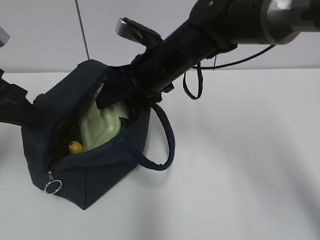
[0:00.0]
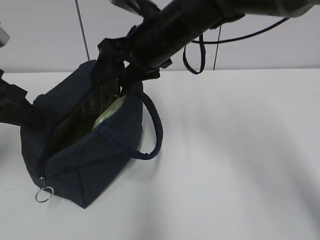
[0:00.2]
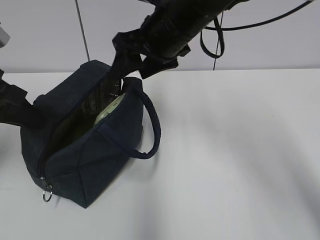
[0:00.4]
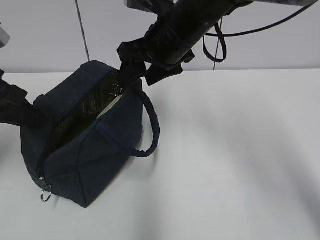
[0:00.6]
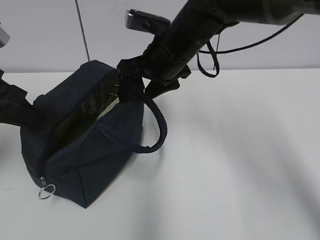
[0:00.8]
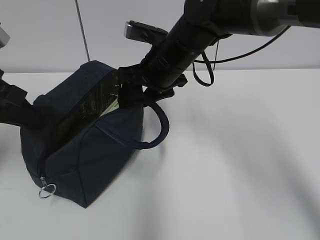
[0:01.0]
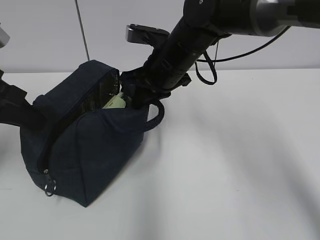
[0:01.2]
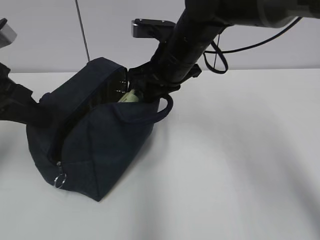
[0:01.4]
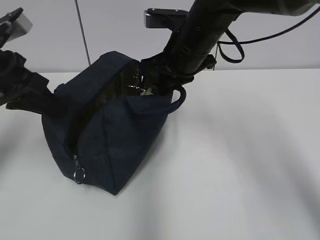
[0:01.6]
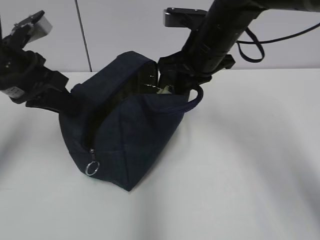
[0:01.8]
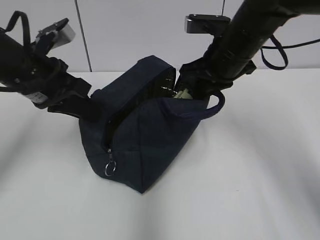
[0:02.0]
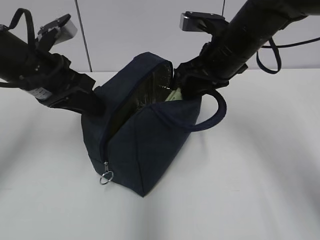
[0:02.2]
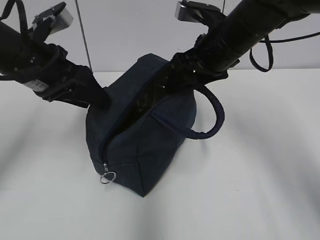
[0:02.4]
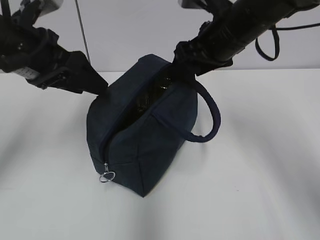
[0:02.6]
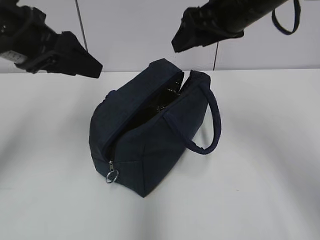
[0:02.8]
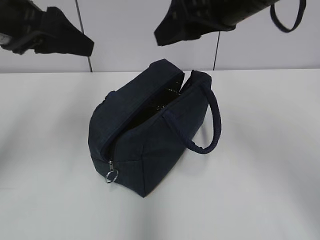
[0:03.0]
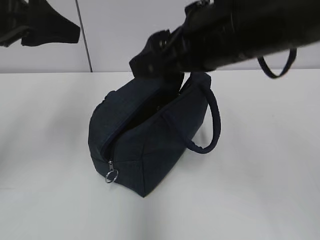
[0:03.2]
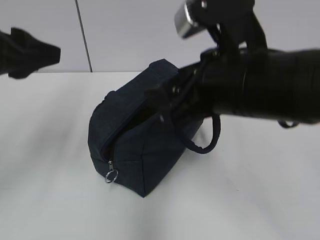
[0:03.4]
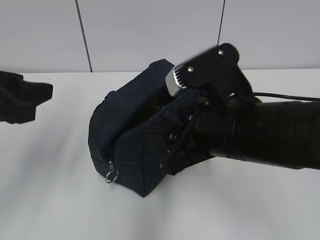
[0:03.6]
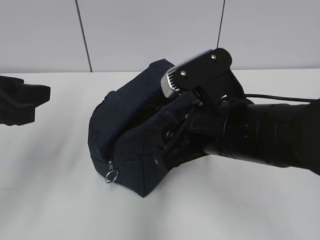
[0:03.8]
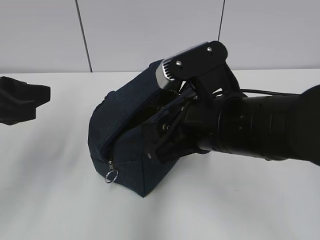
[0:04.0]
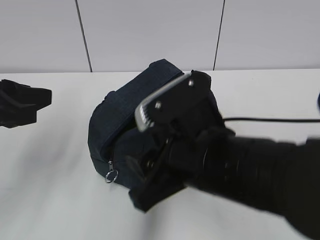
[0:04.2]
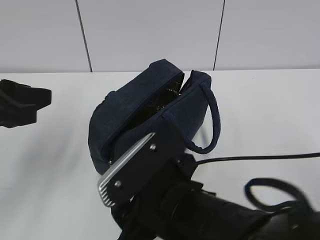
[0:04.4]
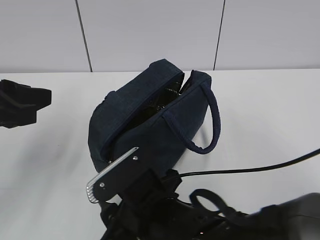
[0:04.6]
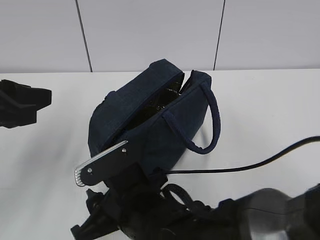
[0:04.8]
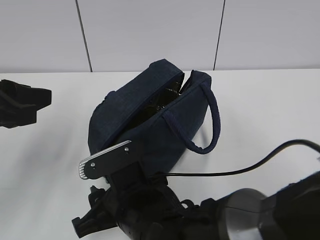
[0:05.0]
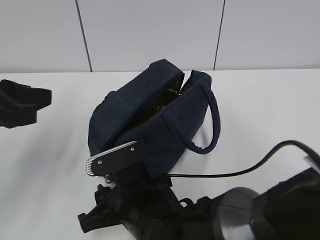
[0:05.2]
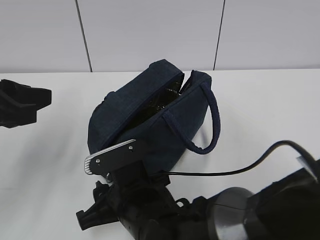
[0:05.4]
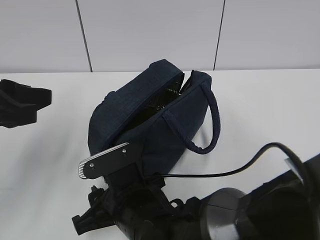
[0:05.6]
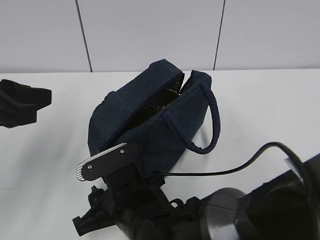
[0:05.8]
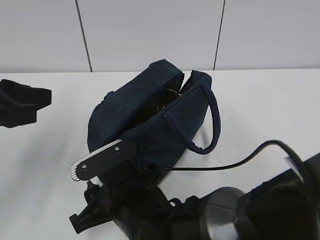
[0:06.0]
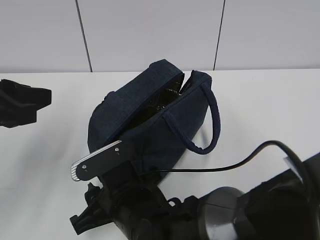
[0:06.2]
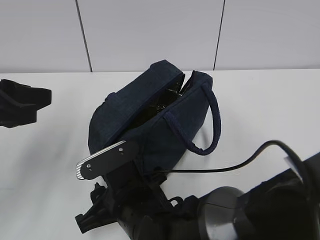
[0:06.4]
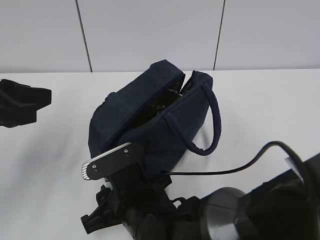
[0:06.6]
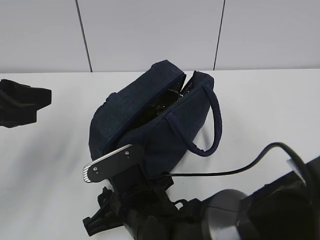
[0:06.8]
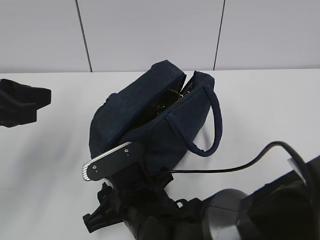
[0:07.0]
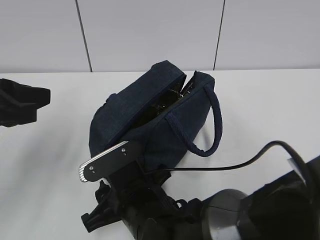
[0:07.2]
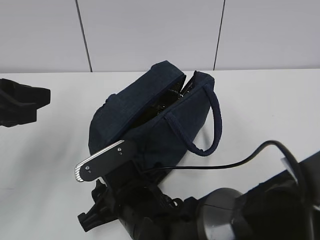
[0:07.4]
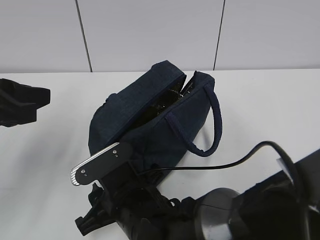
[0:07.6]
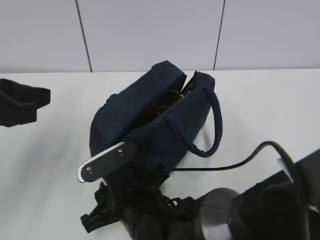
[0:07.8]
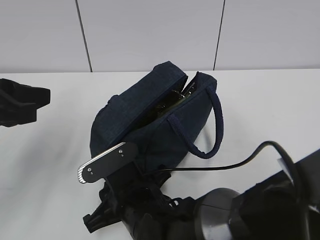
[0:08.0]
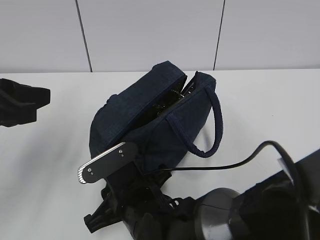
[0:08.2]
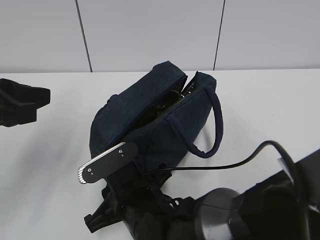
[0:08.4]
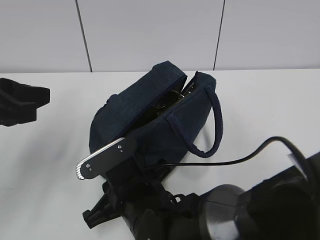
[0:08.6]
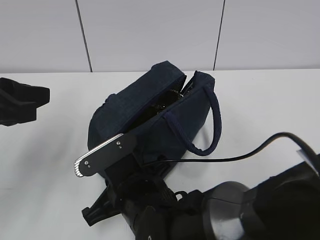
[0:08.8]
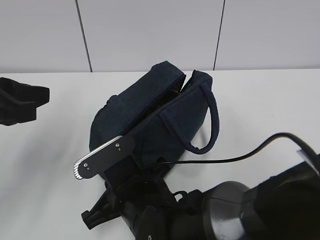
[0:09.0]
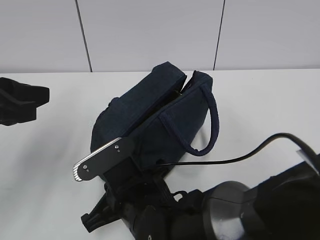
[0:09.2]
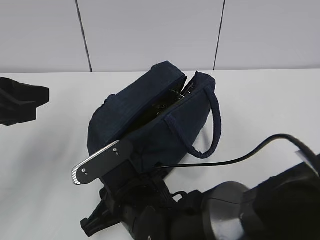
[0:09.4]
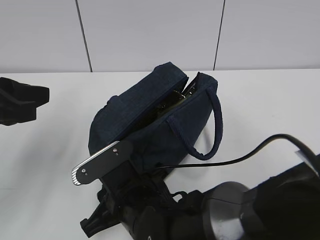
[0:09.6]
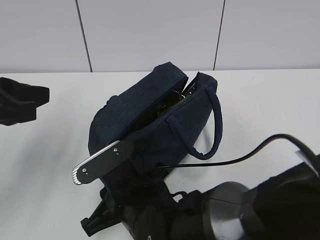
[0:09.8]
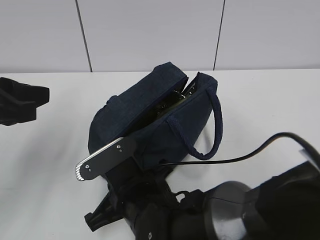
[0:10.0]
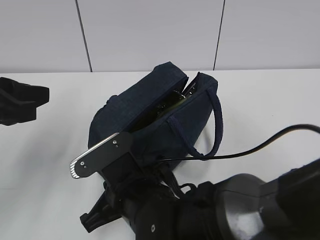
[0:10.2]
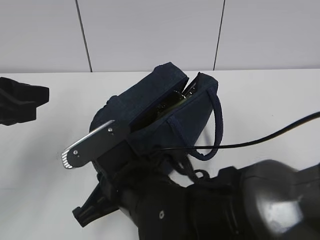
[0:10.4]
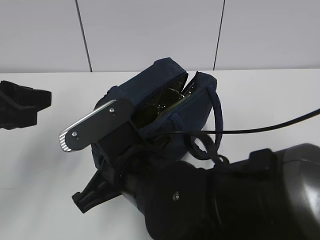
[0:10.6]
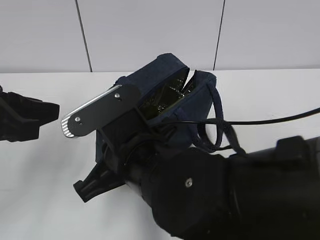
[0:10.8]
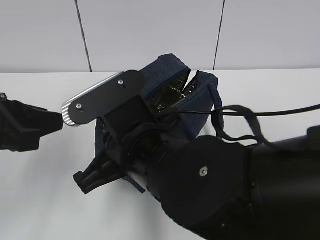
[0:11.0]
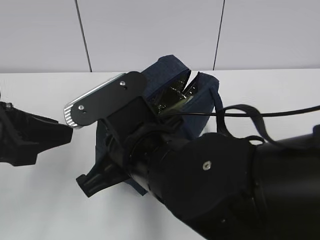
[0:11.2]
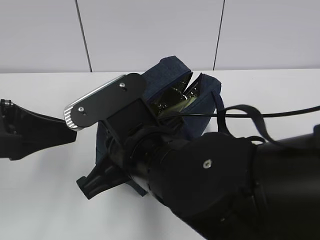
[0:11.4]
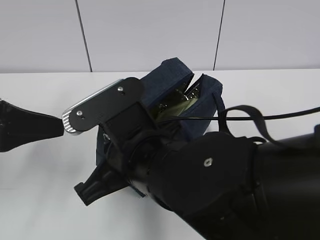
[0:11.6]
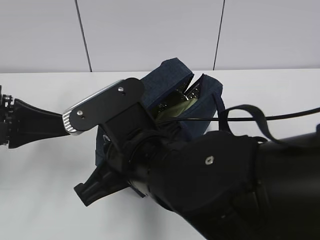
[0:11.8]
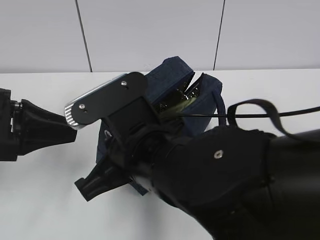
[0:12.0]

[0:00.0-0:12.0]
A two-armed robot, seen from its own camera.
0.0 to 1.6 s: The right gripper shifts some 5 cm to the right, and closes its fingers.
1.6 to 3.0 s: The left gripper goes roughly 10 cm upward, and opens its fingers. Meanwhile the right gripper is displaced upward and backward by some 10 cm, and opens.
3.0 to 4.4 s: The right gripper shifts roughly 25 cm downward, backward and to the left, while the left gripper heads backward and downward, covering some 10 cm.
4.4 to 6.0 s: The right gripper goes some 10 cm downward and to the left.
6.0 to 7.6 s: There are only small adjustments of the grippers.
7.6 to 9.0 s: The right gripper closes its fingers.
9.0 to 10.4 s: The right gripper opens, then closes once more.
10.4 to 12.0 s: The right gripper is displaced upward by approximately 5 cm. The left gripper changes place by approximately 5 cm.

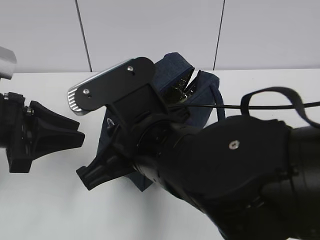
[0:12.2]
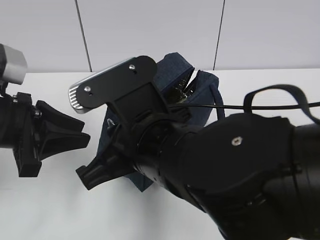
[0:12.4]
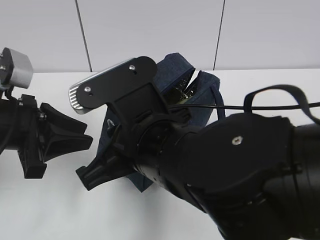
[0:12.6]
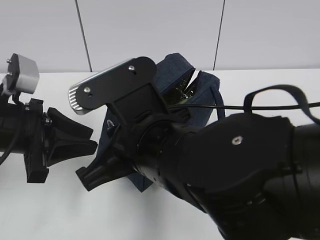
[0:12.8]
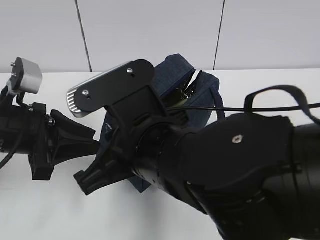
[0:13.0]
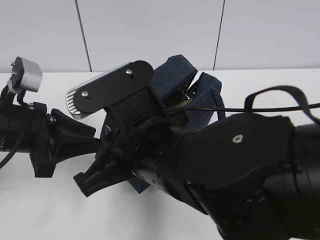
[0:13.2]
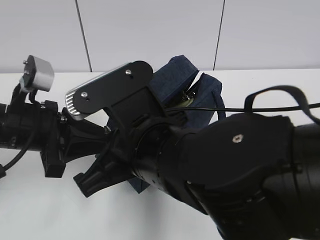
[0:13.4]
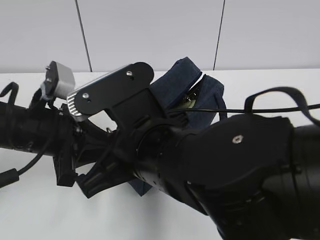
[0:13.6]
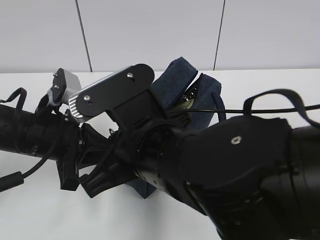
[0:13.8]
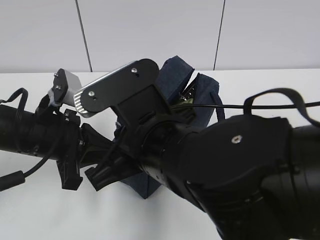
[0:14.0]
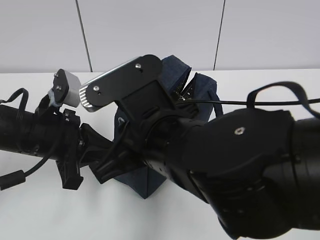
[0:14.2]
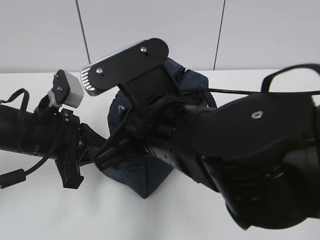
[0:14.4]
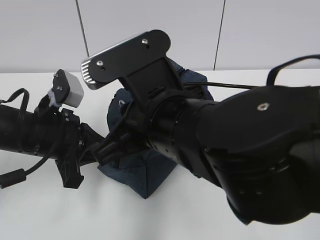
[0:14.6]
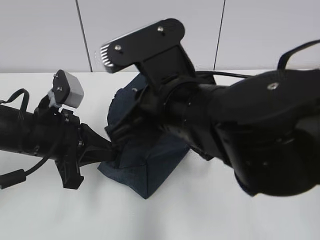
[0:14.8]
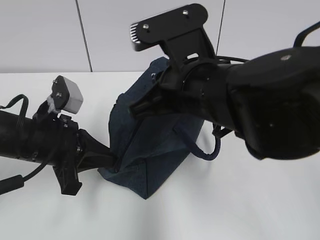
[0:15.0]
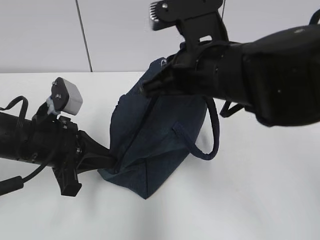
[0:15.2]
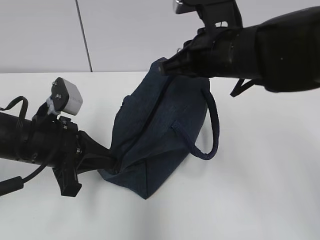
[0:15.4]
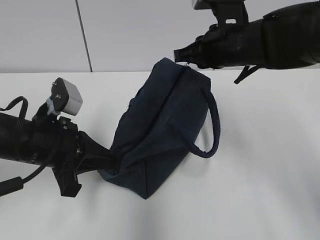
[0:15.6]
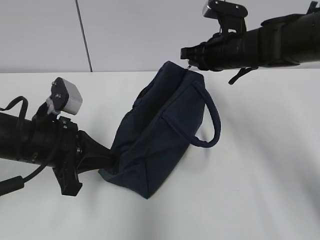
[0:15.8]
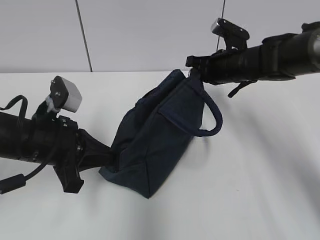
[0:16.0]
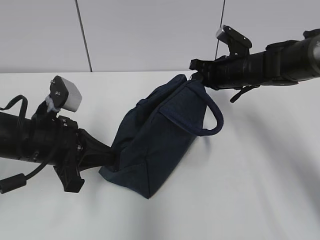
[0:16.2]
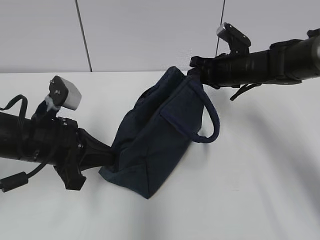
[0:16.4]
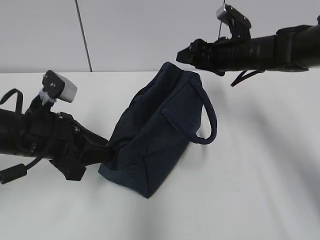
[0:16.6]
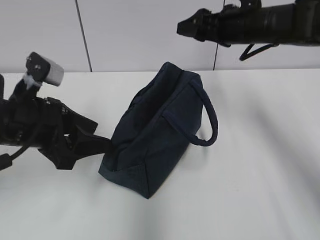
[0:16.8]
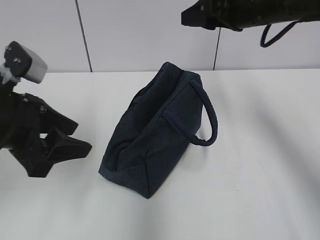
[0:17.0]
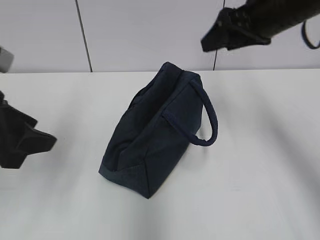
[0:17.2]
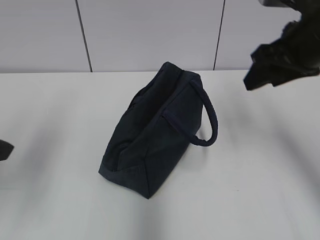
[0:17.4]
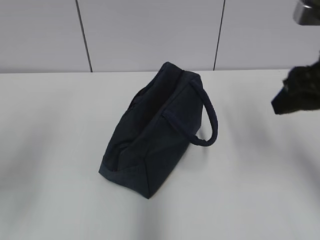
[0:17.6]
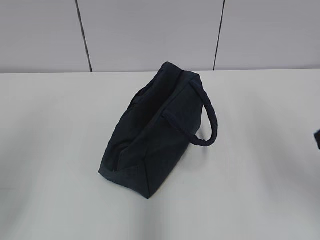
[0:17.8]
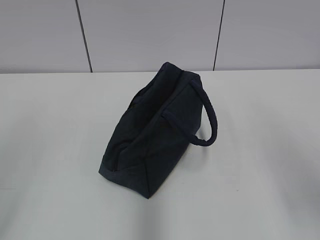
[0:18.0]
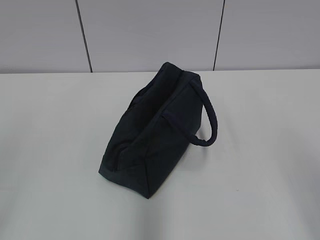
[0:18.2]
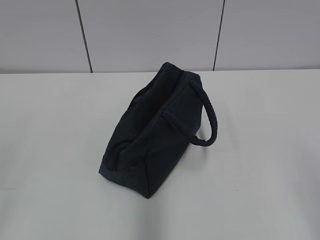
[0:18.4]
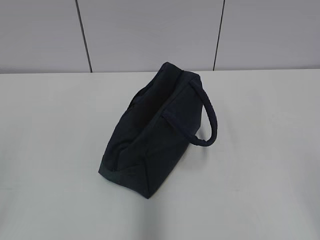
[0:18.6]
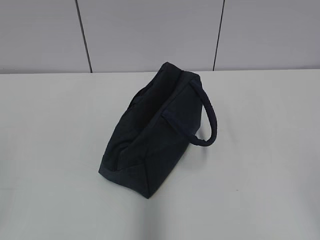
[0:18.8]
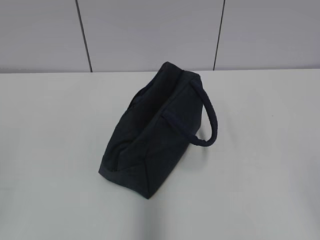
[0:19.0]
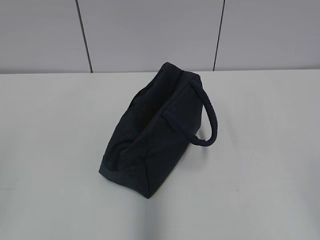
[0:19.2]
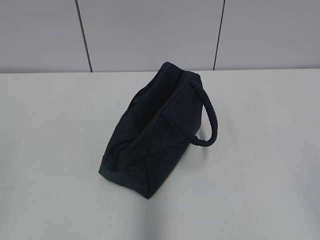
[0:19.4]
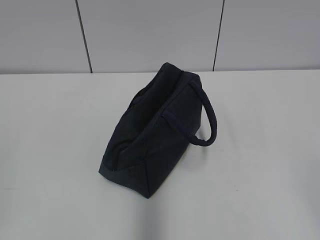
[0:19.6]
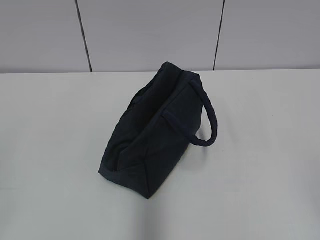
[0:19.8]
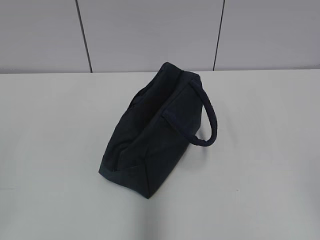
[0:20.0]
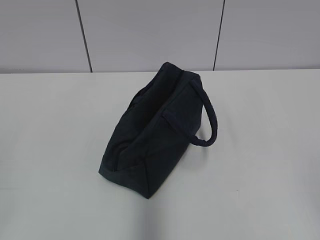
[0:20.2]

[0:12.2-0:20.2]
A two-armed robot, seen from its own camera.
12.2 to 13.8 s: The left gripper travels to the right by roughly 5 cm, and closes.
13.8 to 15.4 s: The right gripper goes roughly 15 cm forward and to the right.
15.4 to 17.0 s: The left gripper travels upward by some 5 cm, and opens; the right gripper shifts about 10 cm forward and to the right, goes downward and returns, some 10 cm each way, and opens.
17.0 to 18.6 s: The right gripper goes about 40 cm backward. Meanwhile the left gripper shifts approximately 25 cm backward and to the left.

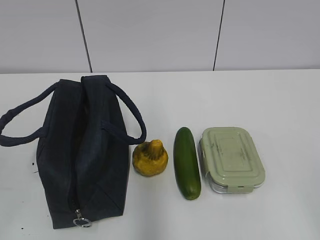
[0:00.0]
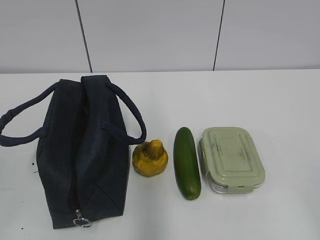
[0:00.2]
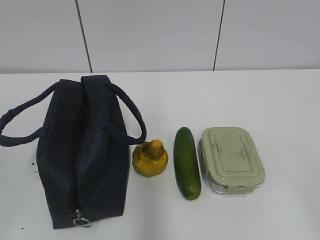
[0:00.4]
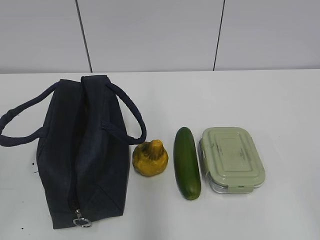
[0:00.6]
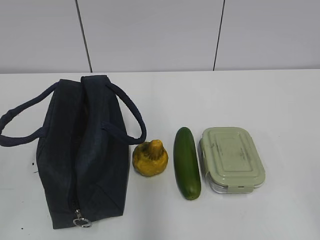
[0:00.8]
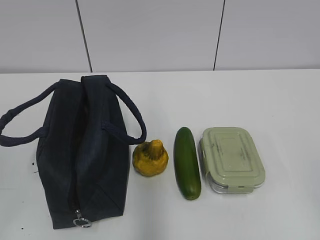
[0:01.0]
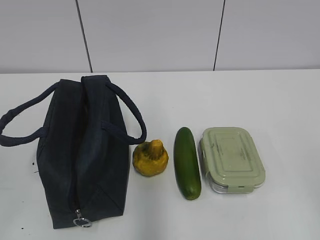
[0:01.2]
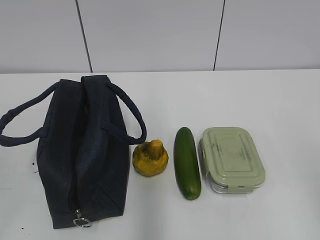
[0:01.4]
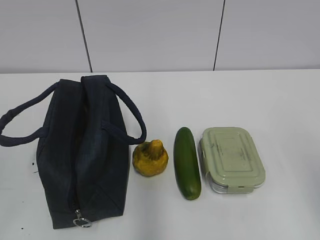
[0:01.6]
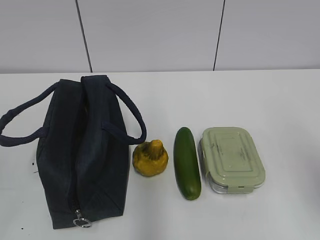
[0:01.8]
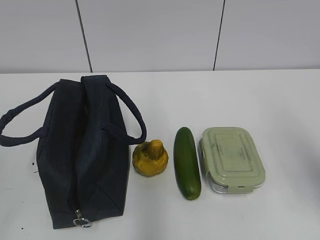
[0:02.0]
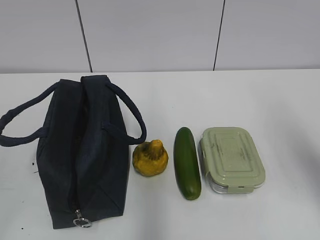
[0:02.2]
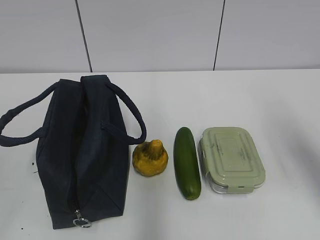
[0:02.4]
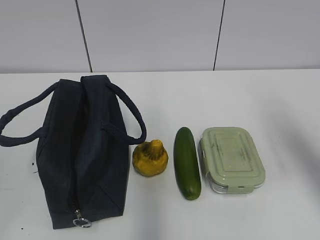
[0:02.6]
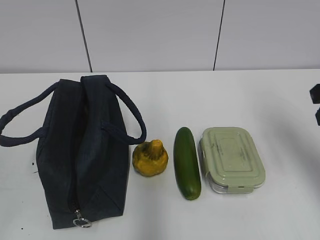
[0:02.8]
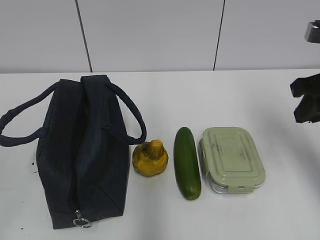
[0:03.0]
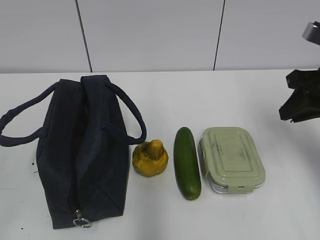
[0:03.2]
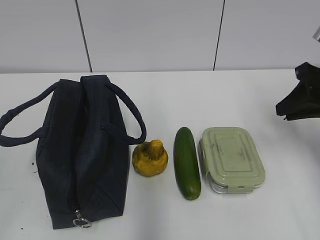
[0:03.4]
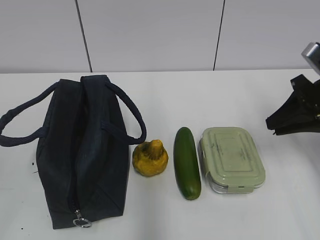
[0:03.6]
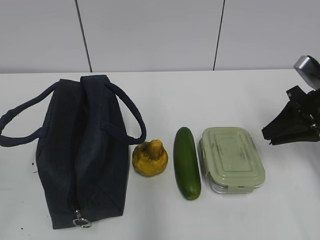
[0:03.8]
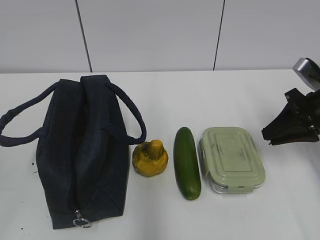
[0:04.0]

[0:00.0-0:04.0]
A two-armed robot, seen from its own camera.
1.4 to 2.6 s: The right gripper shifts about 20 cm forward.
2.6 to 4.0 s: The right gripper heads downward and forward, covering approximately 15 cm, and closes its fingers.
